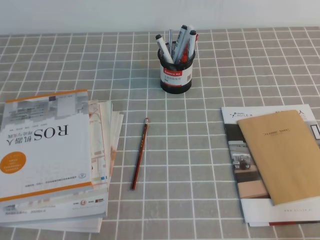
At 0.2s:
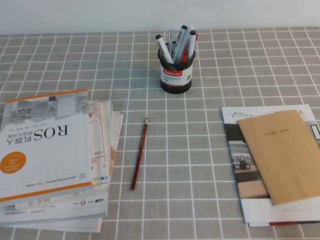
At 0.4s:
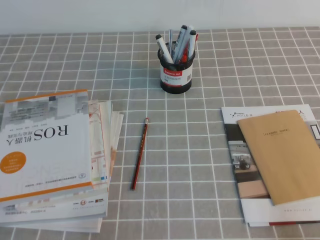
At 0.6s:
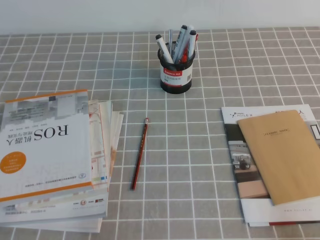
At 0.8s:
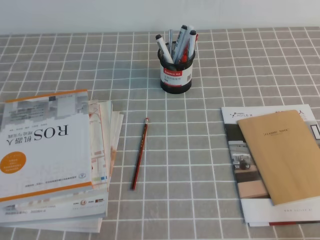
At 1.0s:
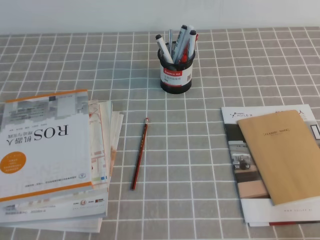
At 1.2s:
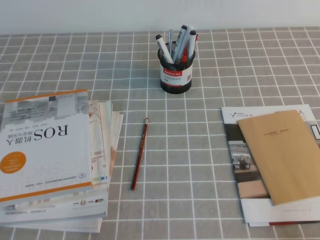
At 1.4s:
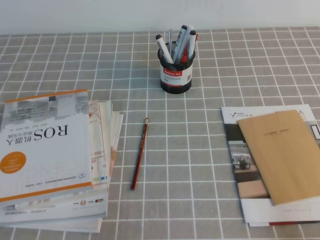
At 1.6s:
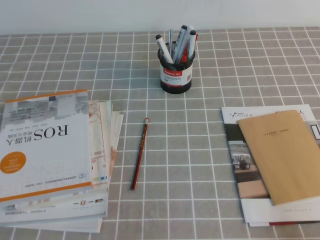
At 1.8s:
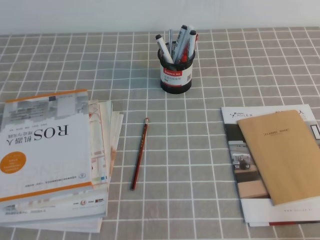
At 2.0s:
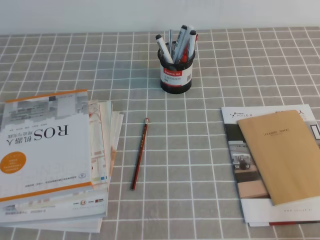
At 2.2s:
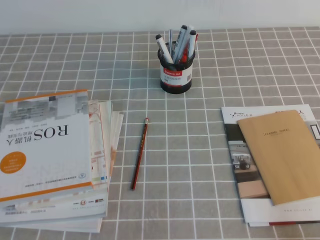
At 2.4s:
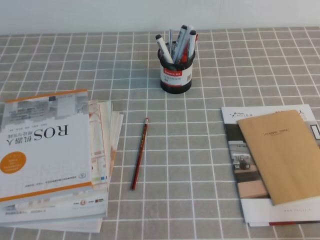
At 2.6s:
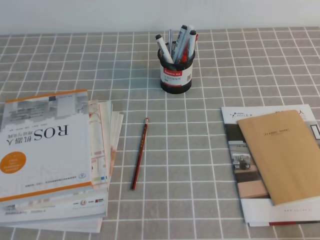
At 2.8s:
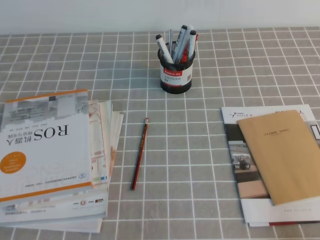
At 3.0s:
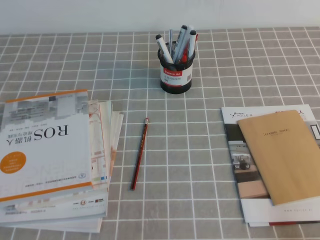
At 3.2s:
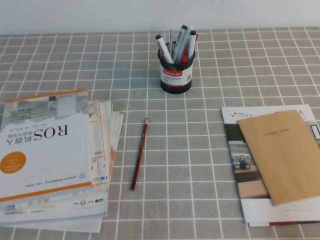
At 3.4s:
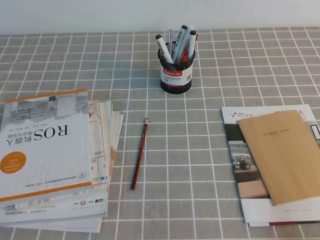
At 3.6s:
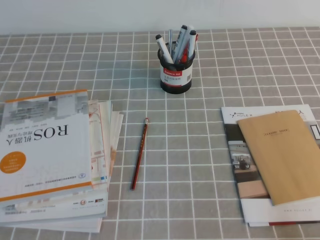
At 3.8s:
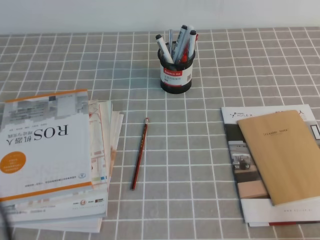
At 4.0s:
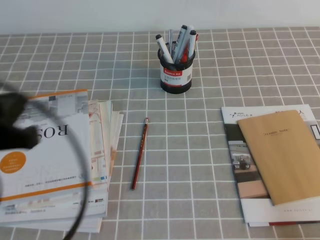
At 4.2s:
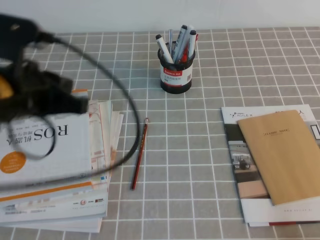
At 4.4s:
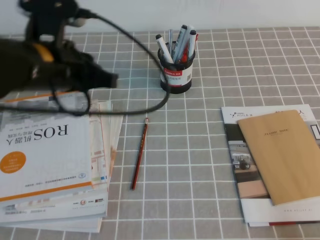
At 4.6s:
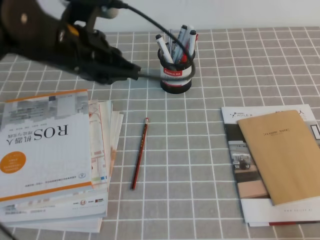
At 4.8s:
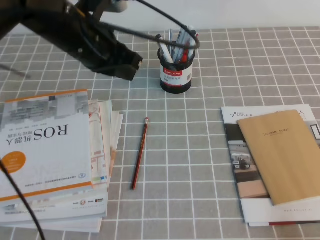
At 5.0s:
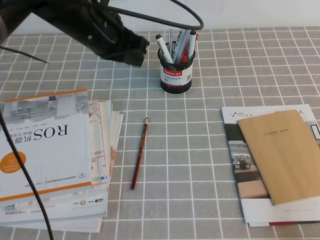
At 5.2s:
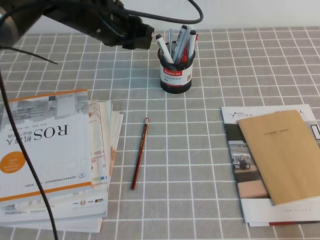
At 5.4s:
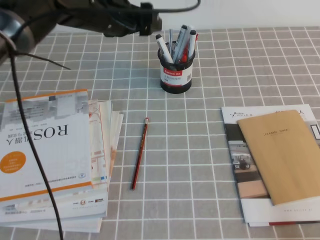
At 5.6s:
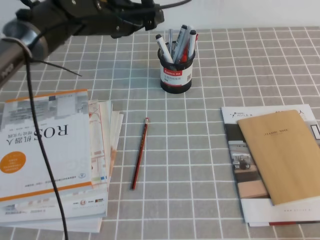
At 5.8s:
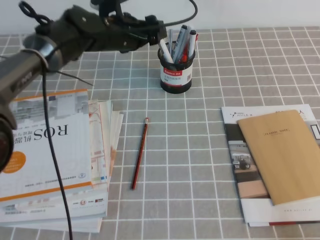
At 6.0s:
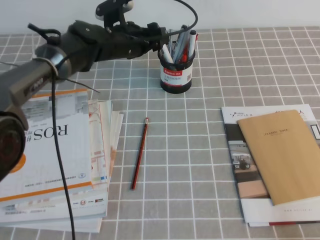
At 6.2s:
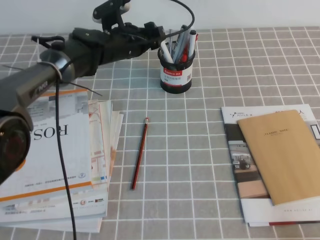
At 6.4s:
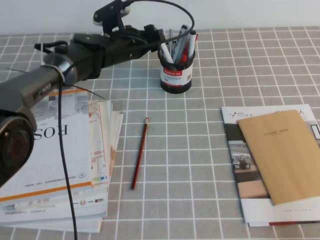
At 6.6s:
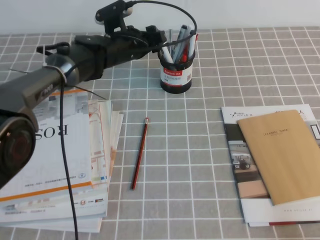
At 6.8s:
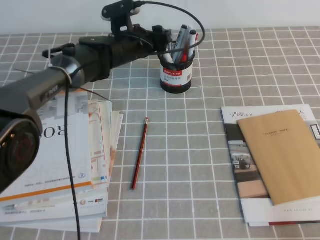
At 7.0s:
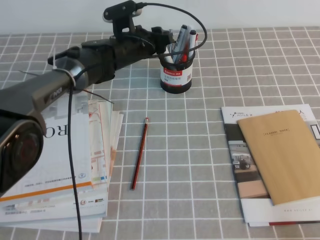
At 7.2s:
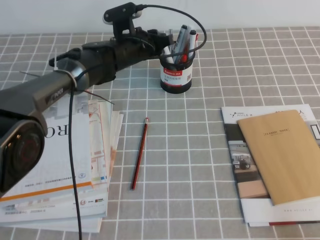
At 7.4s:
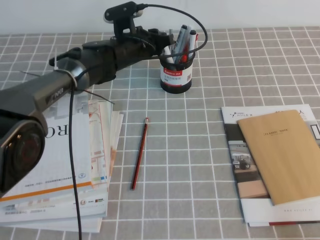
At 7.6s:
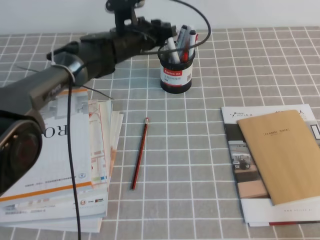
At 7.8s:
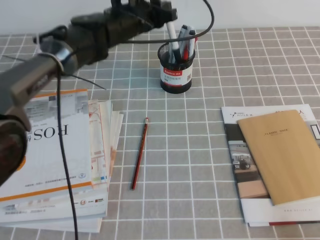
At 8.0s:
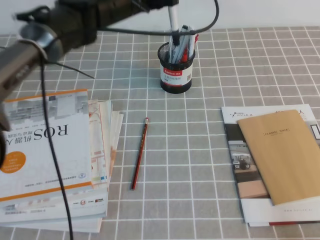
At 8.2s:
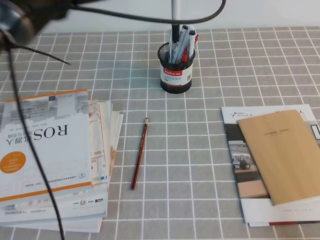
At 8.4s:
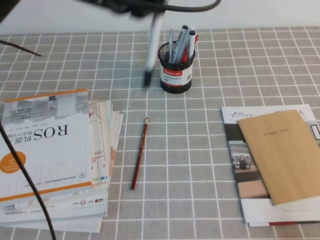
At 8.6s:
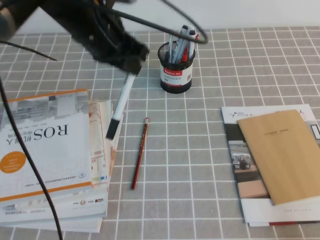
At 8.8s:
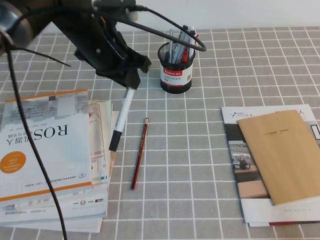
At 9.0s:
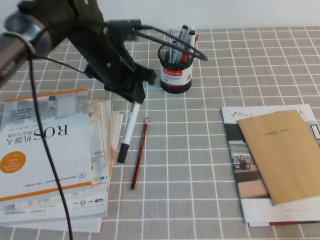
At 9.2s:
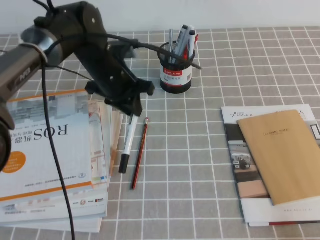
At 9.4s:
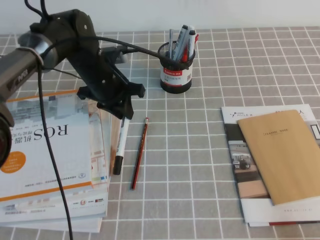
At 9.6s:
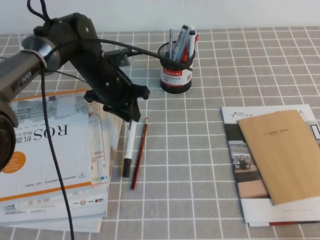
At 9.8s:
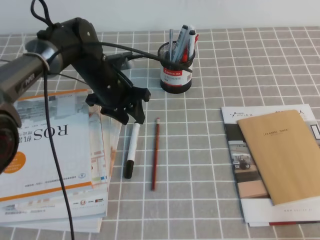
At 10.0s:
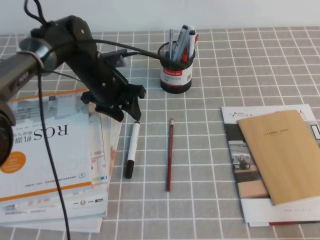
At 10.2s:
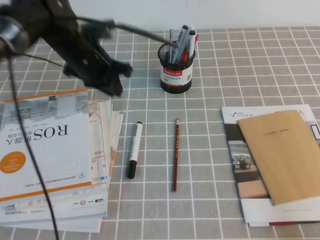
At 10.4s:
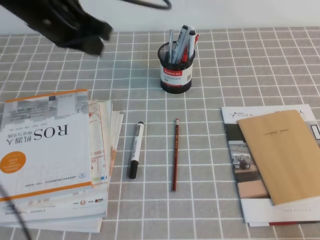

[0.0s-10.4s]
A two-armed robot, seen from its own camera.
3.0s to 4.4s: The left gripper travels forward, upward and to the right by about 30 cm.
4.4s to 6.0s: The left gripper moves forward and downward, about 25 cm, and opens its fingers.
6.0s to 7.4s: The left gripper closes its fingers.
7.4s to 9.0s: The left gripper is displaced backward and upward by approximately 10 cm.
9.0s to 10.4s: The left gripper shifts about 10 cm upward and to the left.

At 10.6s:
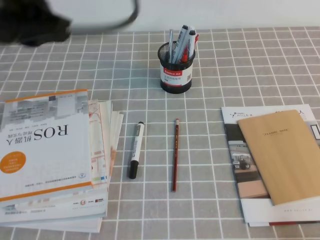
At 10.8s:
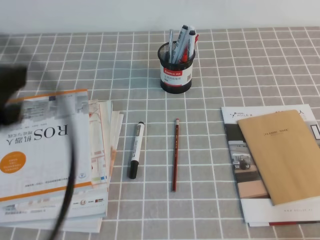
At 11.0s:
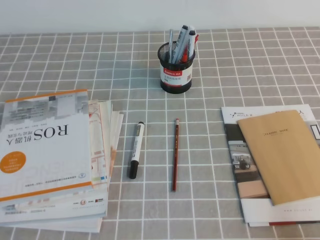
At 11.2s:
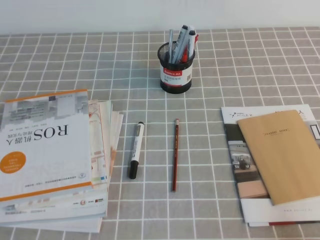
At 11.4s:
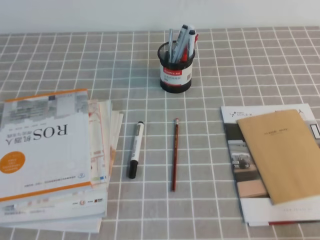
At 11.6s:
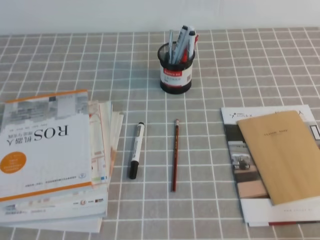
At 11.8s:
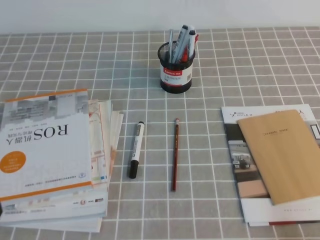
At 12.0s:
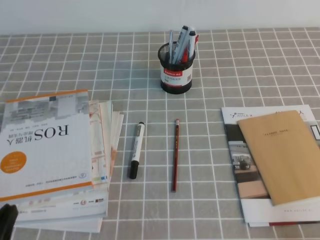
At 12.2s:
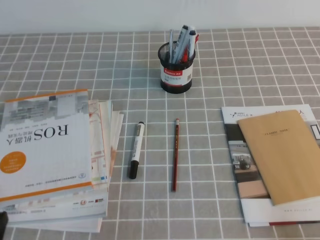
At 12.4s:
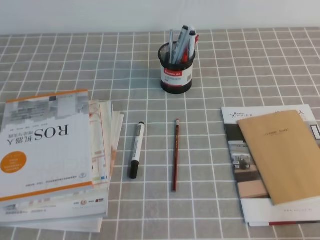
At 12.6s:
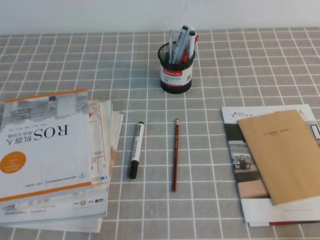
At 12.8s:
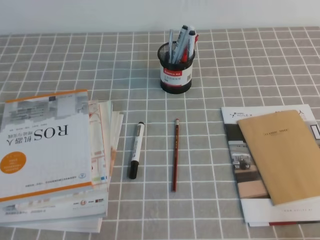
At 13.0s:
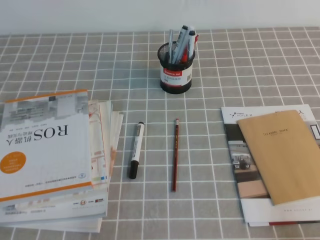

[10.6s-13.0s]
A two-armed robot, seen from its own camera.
Step, 10.6s to 13.0s: Pick up the pen from the pen holder.
10.6s to 11.8s: The left gripper goes about 30 cm backward and downward.
